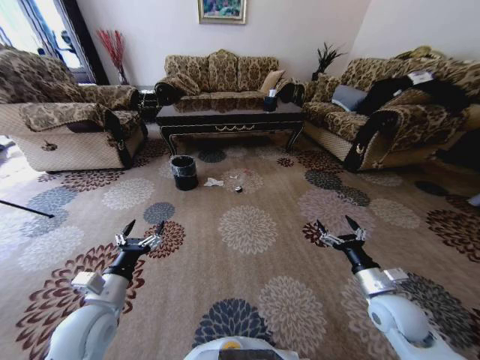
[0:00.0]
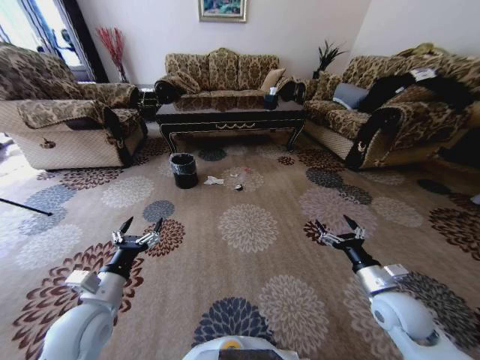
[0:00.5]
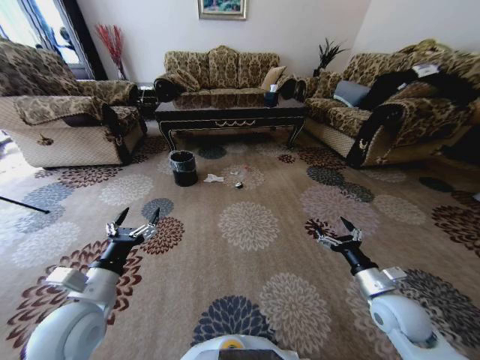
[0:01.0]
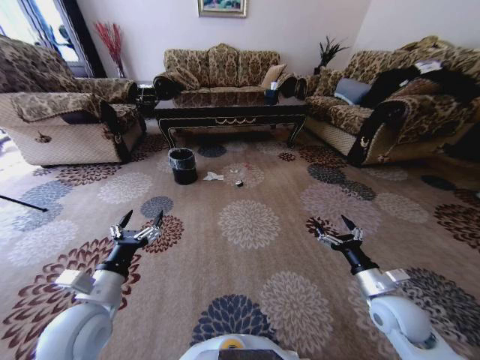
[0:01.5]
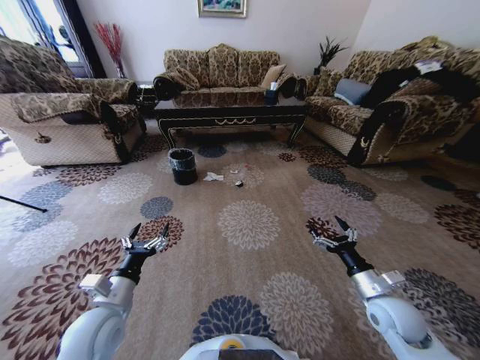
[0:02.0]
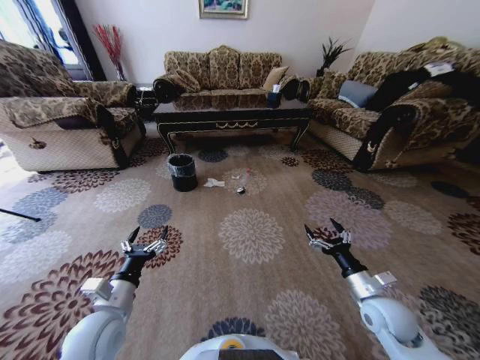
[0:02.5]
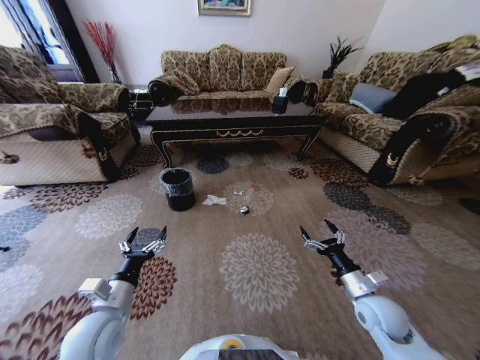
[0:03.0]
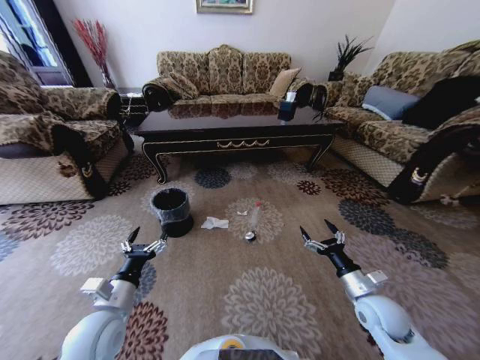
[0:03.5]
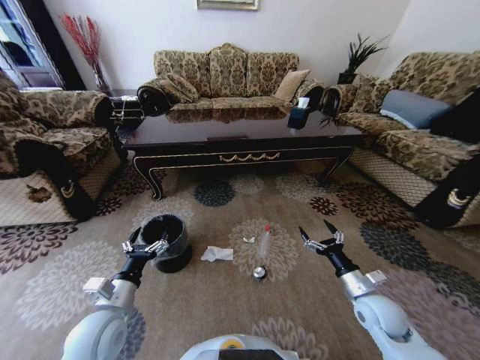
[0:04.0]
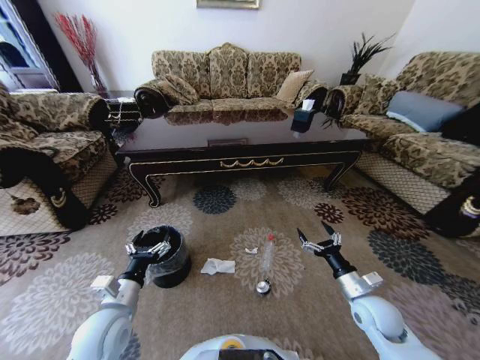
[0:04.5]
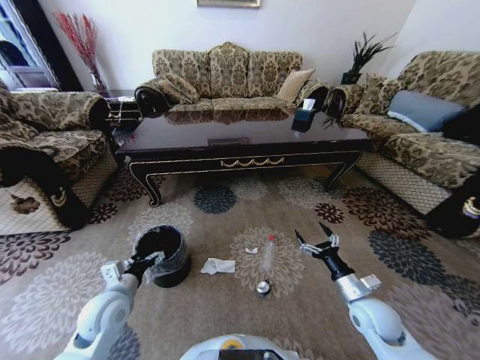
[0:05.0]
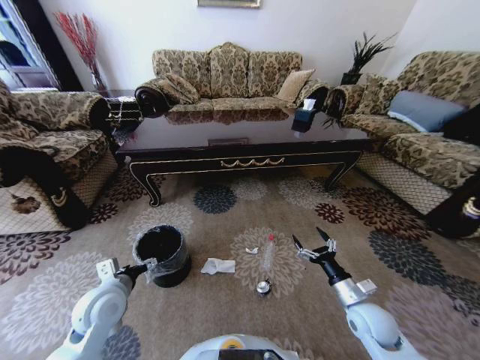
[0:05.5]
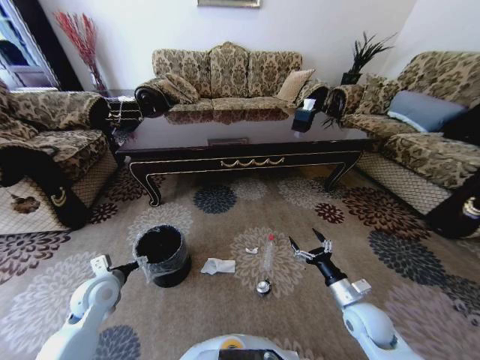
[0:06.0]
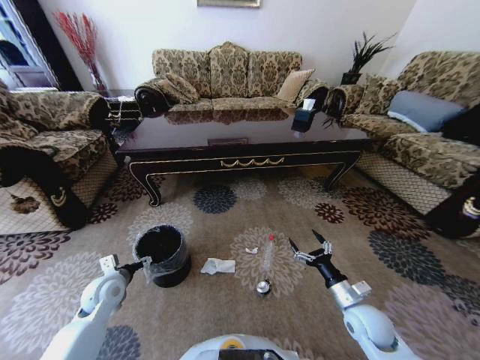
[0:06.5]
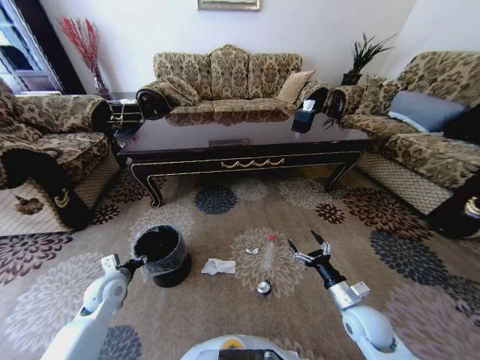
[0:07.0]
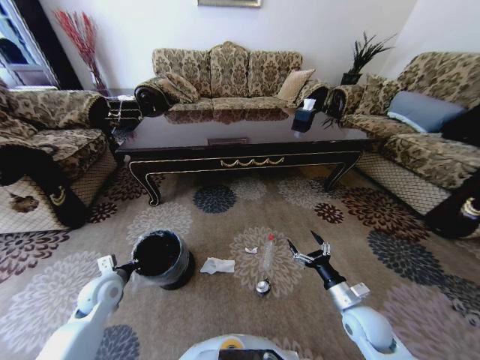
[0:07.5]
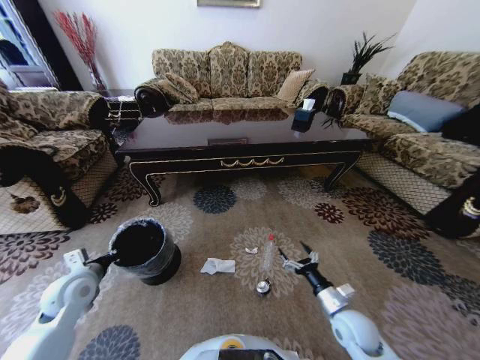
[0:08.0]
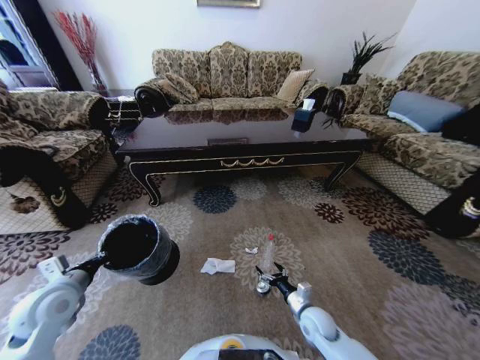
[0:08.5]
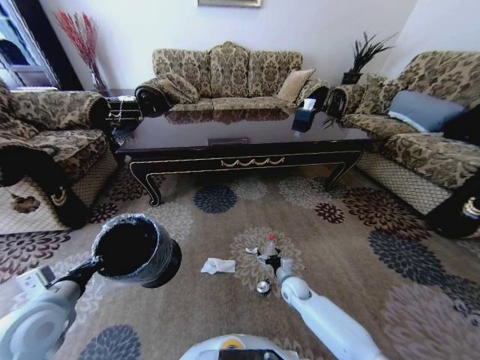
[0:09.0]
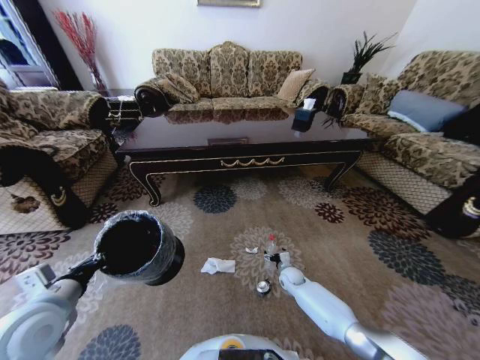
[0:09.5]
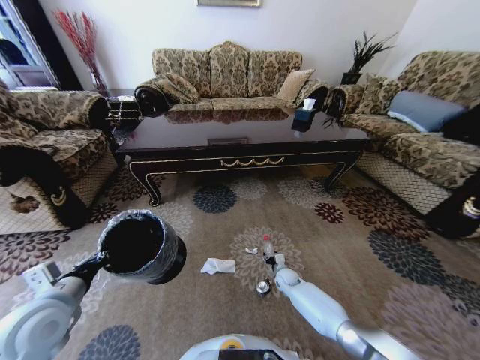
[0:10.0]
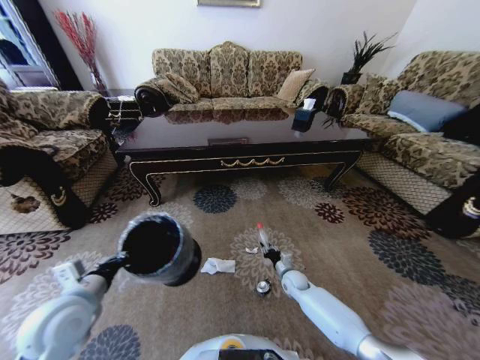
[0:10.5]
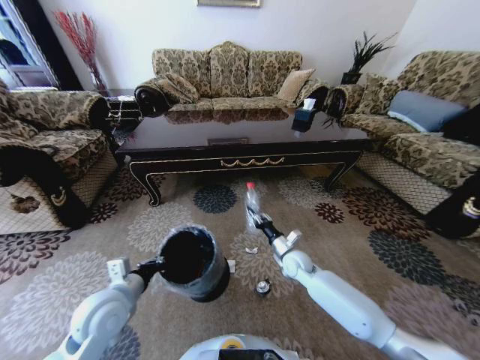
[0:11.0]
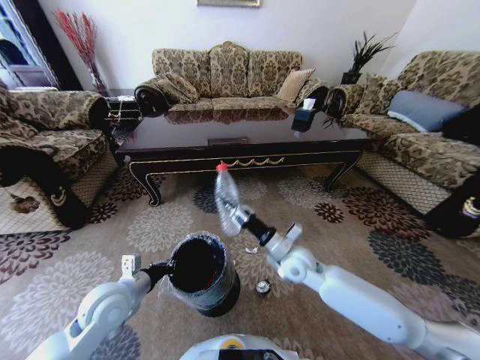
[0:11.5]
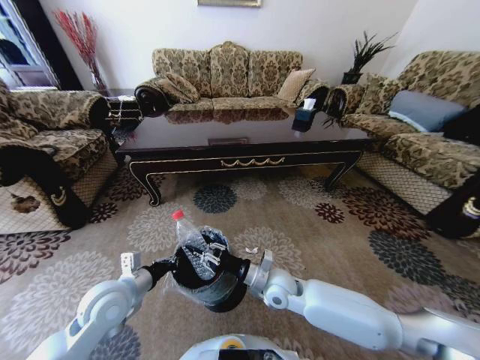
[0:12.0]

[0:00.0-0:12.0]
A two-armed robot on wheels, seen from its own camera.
Task of the whole recording: Move to the front of the table and pick up the trash from the floor, then place it into the trash bin.
0:04.0 to 0:06.0: The left gripper moves forward and to the left, roughly 10 cm.
0:06.0 to 0:08.0: The left gripper moves roughly 5 cm, and closes up.
0:08.0 to 0:10.0: The left gripper moves backward and upward, about 10 cm. Meanwhile the right gripper travels forward, downward and to the left by roughly 25 cm, and closes.
0:10.0 to 0:12.0: The right gripper moves upward, to the left and backward, about 25 cm; the left gripper is displaced to the right by approximately 10 cm.

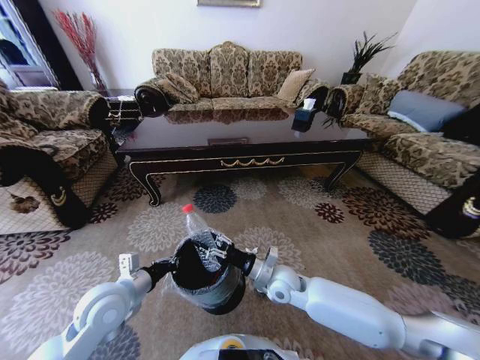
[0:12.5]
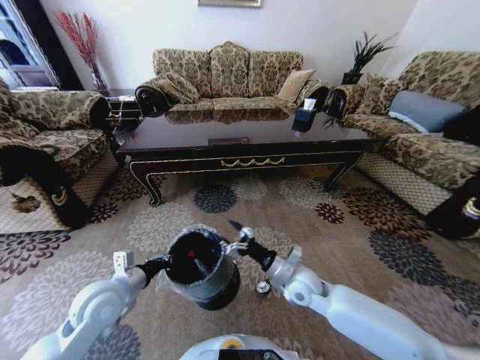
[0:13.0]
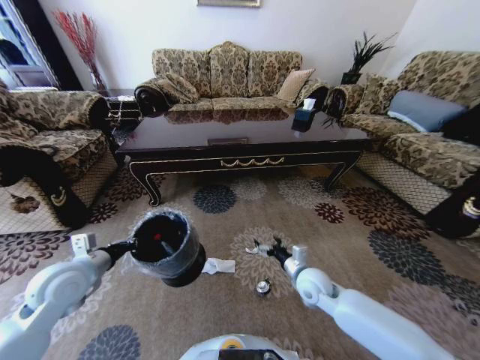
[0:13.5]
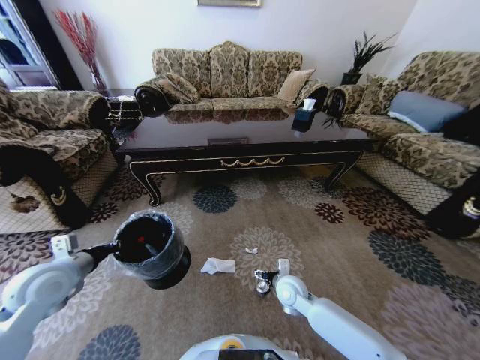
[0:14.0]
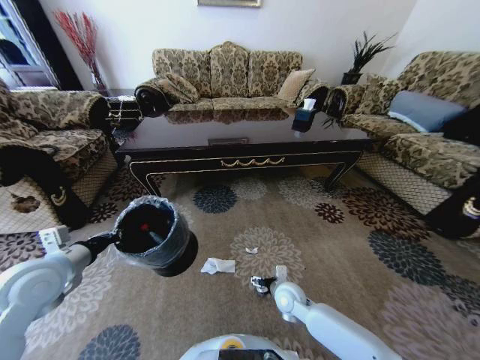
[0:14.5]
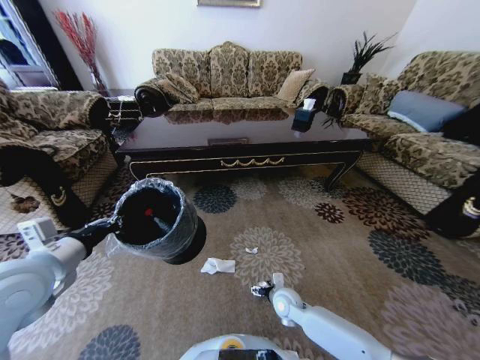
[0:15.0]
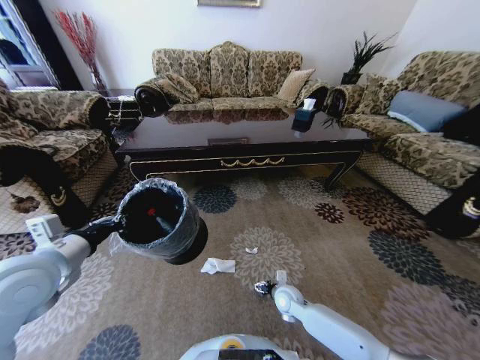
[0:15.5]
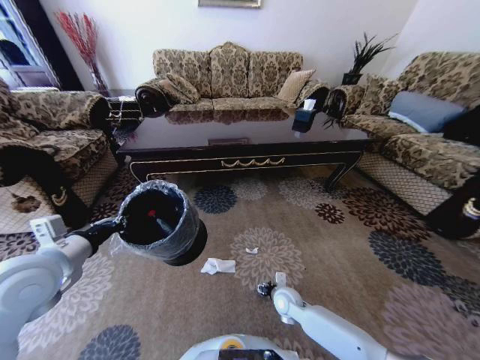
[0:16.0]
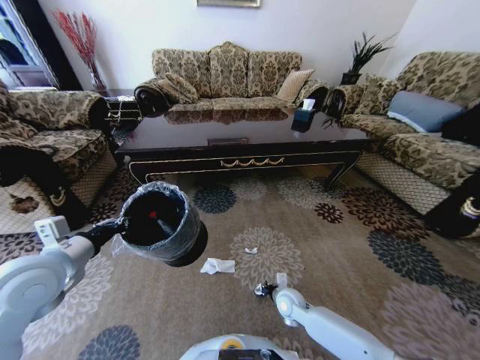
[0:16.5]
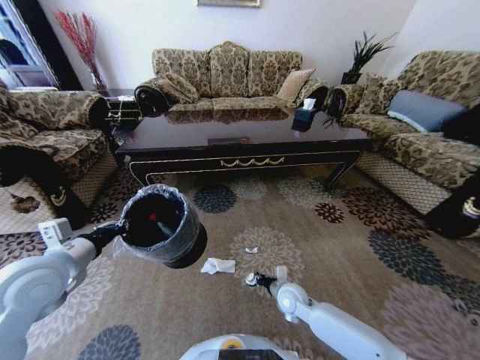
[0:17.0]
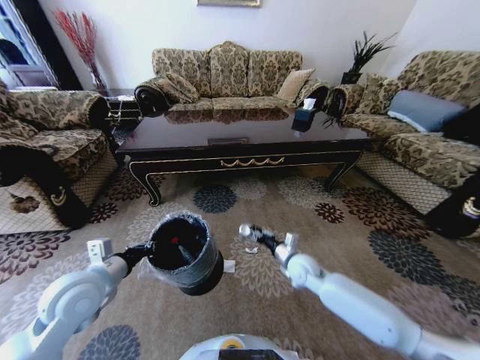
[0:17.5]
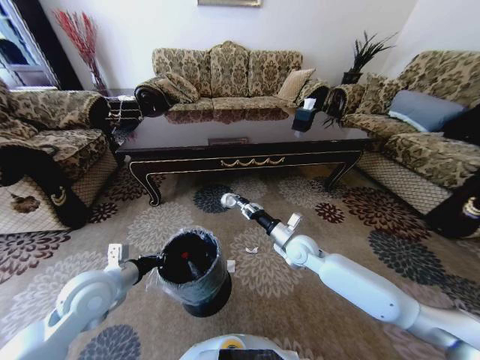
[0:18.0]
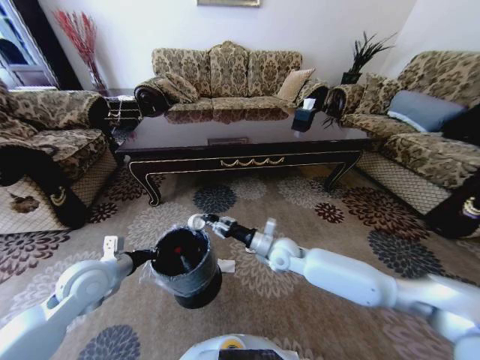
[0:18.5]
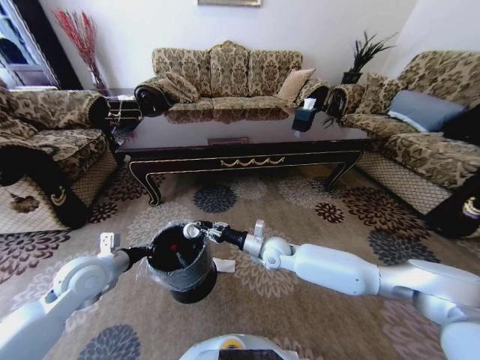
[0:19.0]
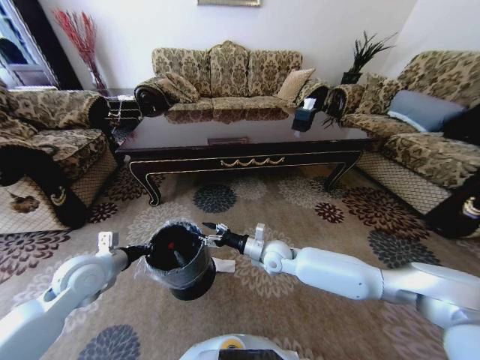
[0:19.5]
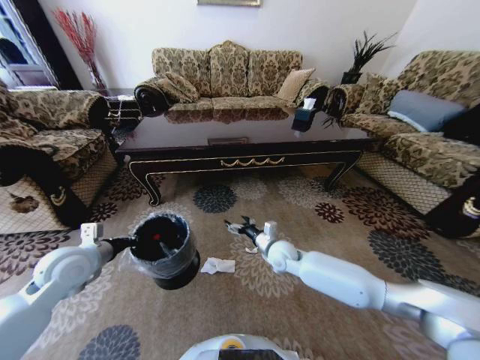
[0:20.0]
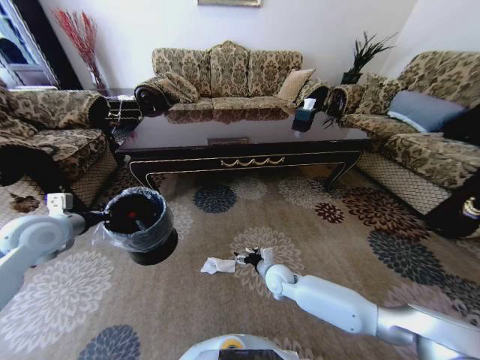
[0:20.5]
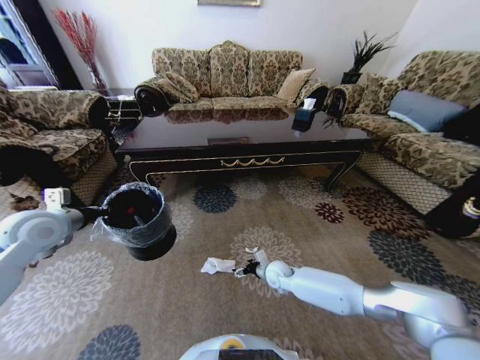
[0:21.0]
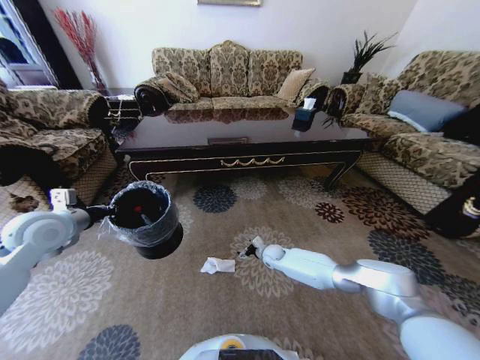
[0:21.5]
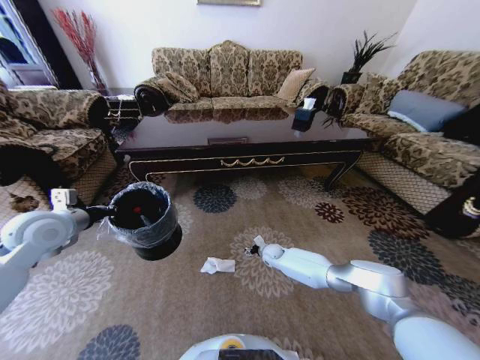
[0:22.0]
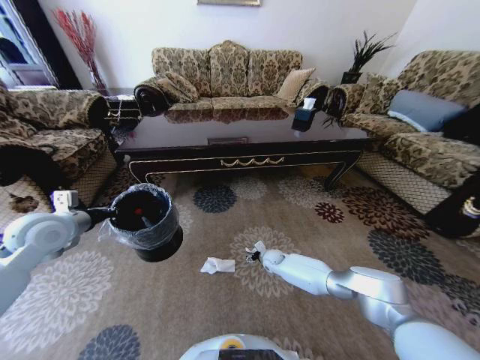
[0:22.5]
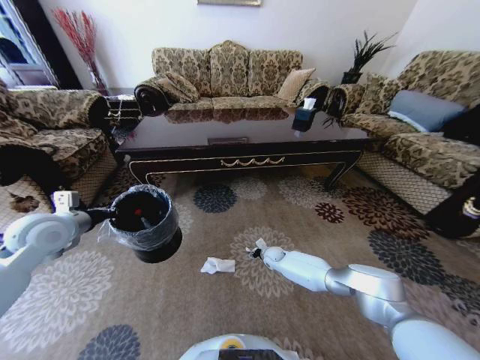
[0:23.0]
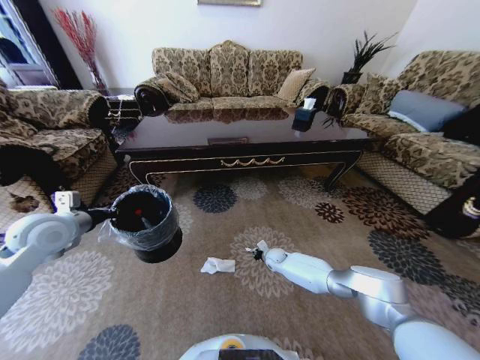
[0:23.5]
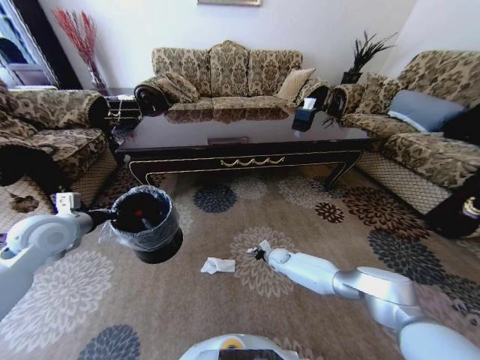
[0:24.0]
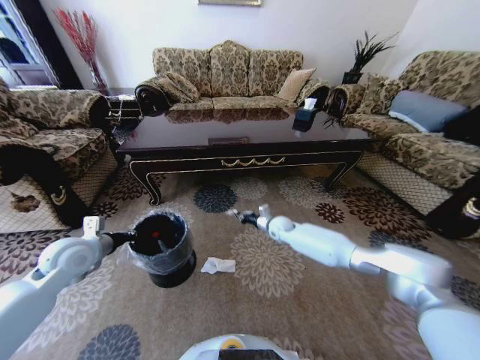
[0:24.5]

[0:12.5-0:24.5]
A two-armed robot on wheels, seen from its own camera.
Task of the whole recording: Move to the front of the table and pick up the trash from the floor, then place it into the trash bin.
0:12.5 to 0:14.5: The left gripper heads to the left and upward, covering roughly 15 cm. Meanwhile the right gripper travels downward by roughly 10 cm, and opens.
0:14.5 to 0:16.5: The right gripper closes up.
0:16.5 to 0:18.5: The right gripper heads upward and forward, covering roughly 20 cm; the left gripper shifts roughly 10 cm downward.
0:18.5 to 0:20.5: The right gripper travels downward by some 10 cm, and opens up. The left gripper moves to the left, upward and forward, about 15 cm.
0:20.5 to 0:22.5: The right gripper moves forward and downward, about 15 cm.
0:22.5 to 0:24.5: The right gripper travels upward and forward by about 15 cm, and closes its fingers. Meanwhile the left gripper travels downward by about 5 cm.

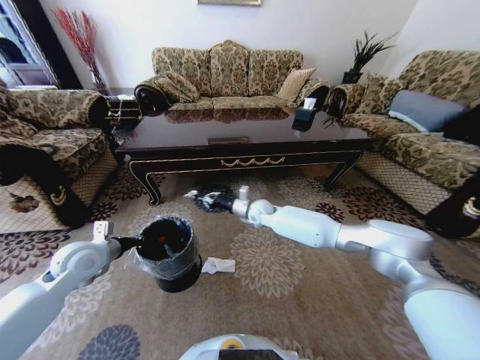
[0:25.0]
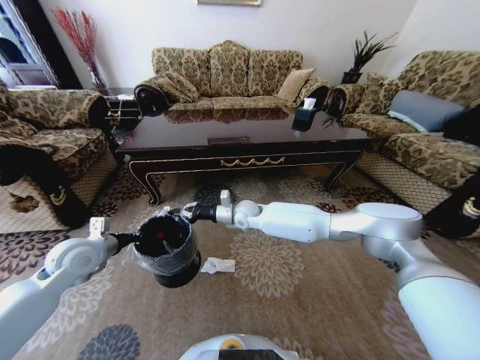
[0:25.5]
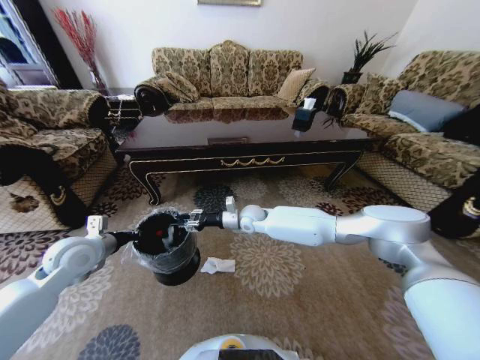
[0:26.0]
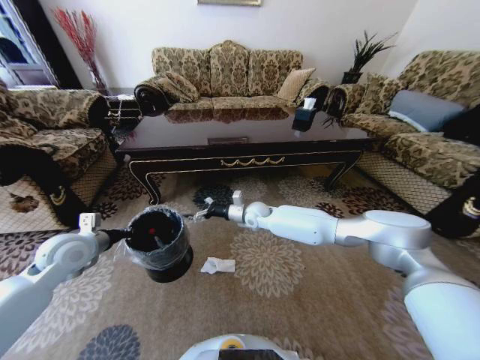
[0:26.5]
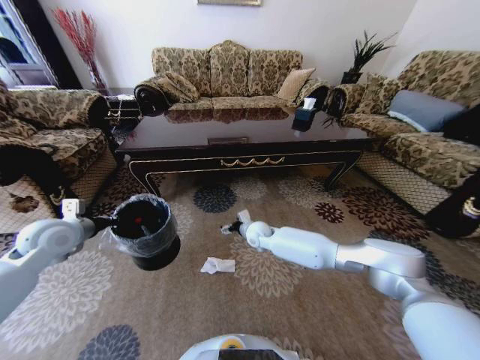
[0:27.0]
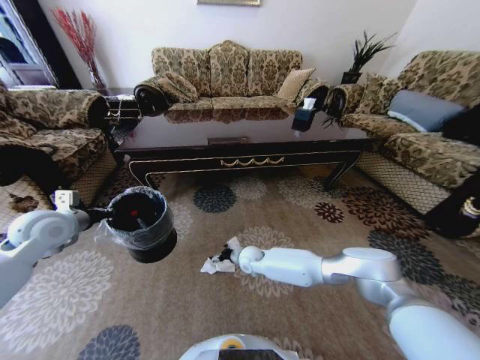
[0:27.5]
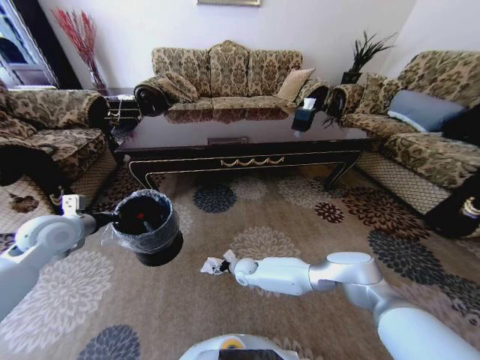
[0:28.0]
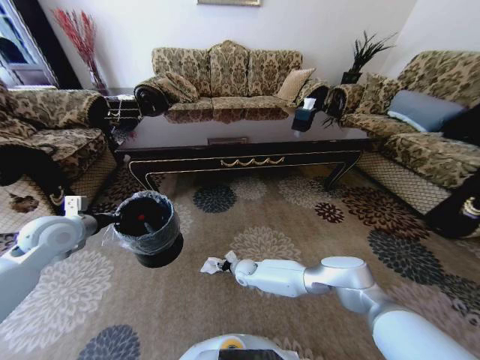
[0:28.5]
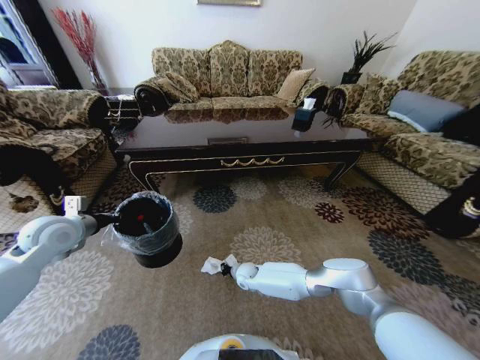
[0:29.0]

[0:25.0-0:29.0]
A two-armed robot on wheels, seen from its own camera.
Task of the whole recording: Move to the front of the table and pick up the trash from the floor, then place it into the trash bin.
0:25.0 to 0:27.0: The right gripper travels downward by some 5 cm, and opens its fingers. The left gripper moves to the left, roughly 5 cm.
0:27.0 to 0:29.0: The right gripper shifts roughly 20 cm downward and backward, and closes its fingers.
